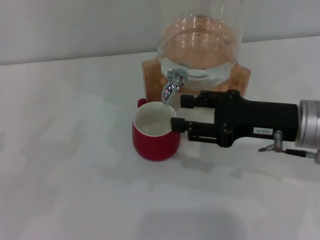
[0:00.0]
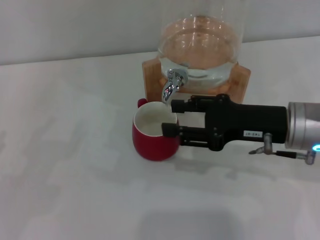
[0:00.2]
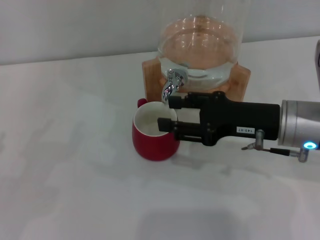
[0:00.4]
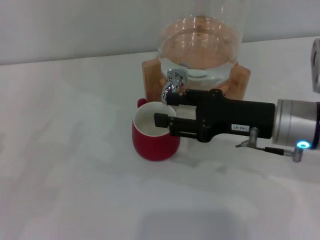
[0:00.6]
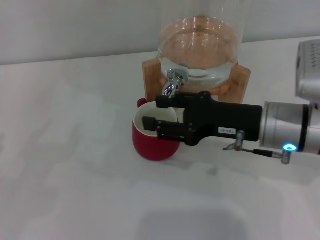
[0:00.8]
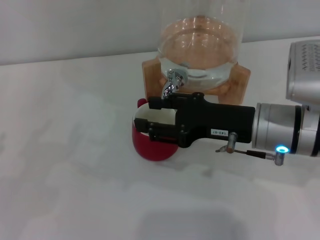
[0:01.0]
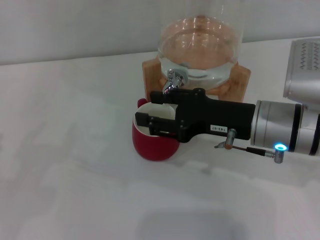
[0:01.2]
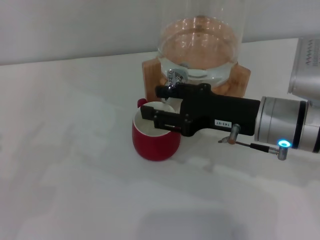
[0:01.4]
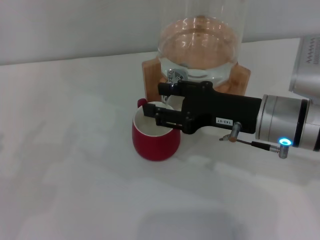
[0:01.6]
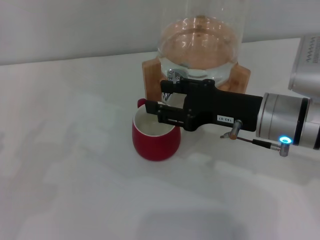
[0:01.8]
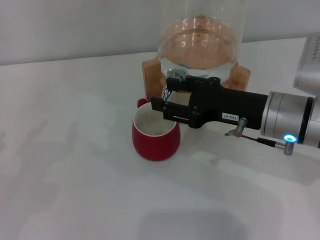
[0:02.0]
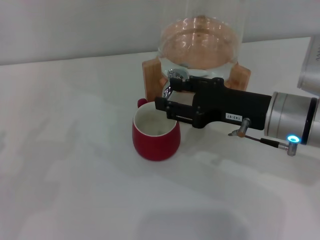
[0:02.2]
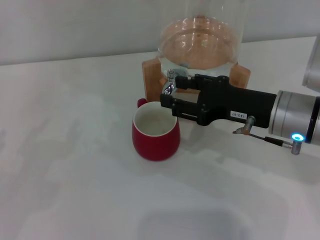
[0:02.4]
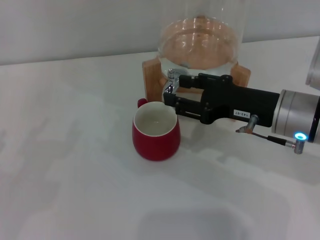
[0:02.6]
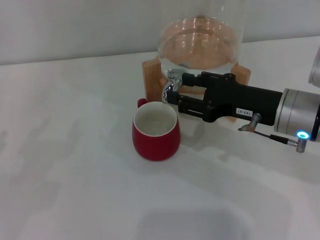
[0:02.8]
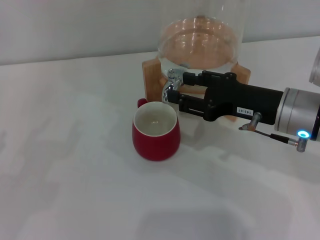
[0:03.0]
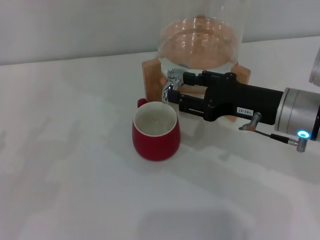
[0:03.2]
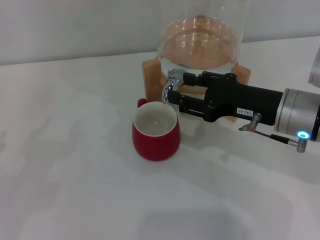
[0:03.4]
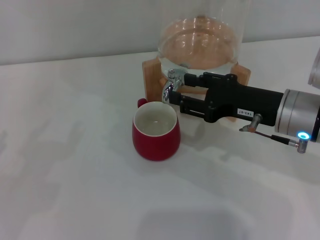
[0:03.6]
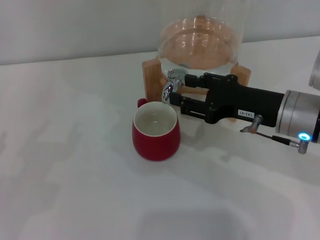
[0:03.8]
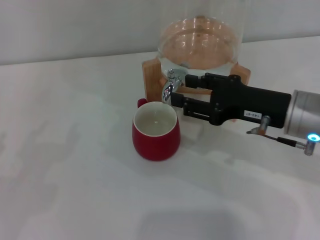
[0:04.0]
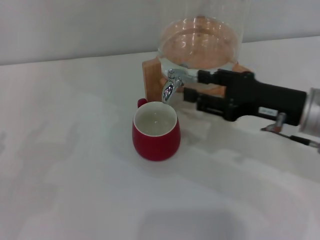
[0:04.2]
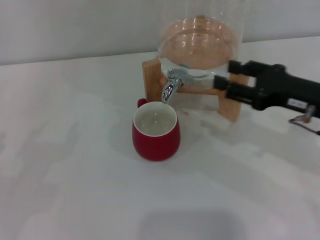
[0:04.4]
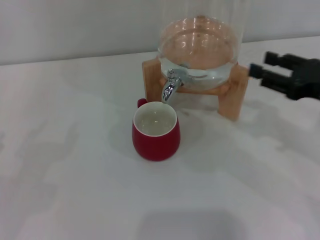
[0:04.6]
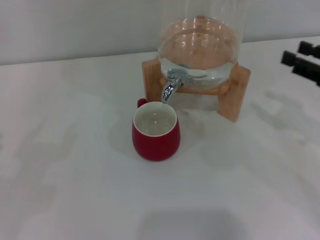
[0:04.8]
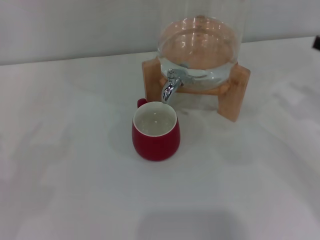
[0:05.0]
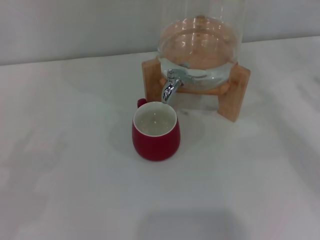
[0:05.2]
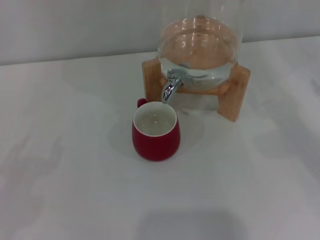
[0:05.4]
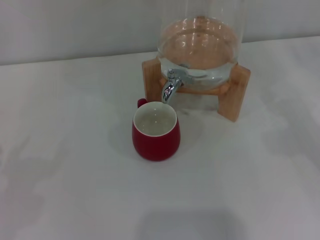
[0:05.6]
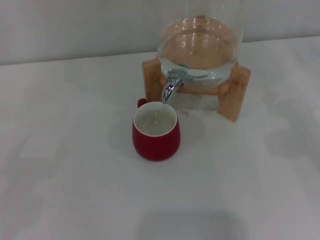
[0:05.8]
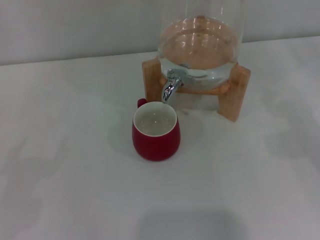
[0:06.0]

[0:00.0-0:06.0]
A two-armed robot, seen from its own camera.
Task of the whole recording: the left gripper pick up the red cup and place it horizontally under the faucet, the right gripper turn on the faucet to fill the cup, and then turn off the faucet.
Step, 0:00.0 to 0:04.0: Close the dispenser valve with the right gripper.
0:00.0 to 0:03.0: The grippers stay close to where they were, moving slightly.
0:03.0 to 0:04.4: The right gripper heads to the right, covering some 5 cm.
0:04.4 to 0:06.0: The right gripper is displaced to the right by some 15 cm.
